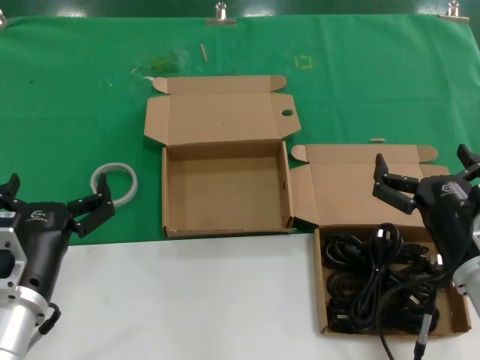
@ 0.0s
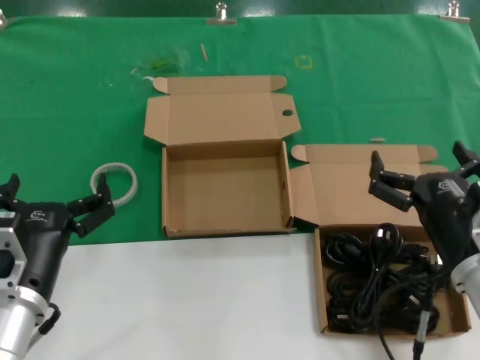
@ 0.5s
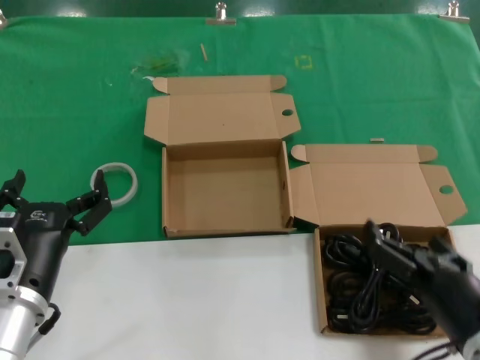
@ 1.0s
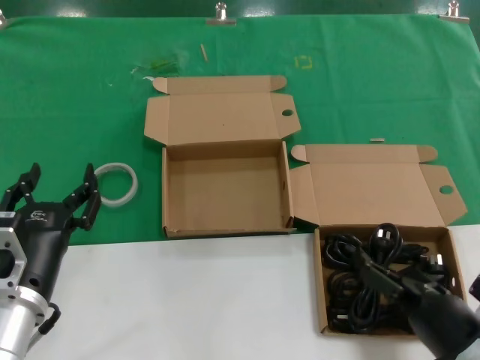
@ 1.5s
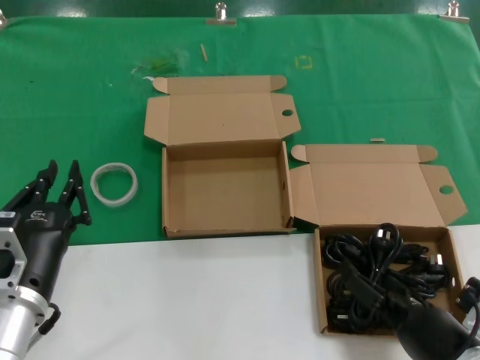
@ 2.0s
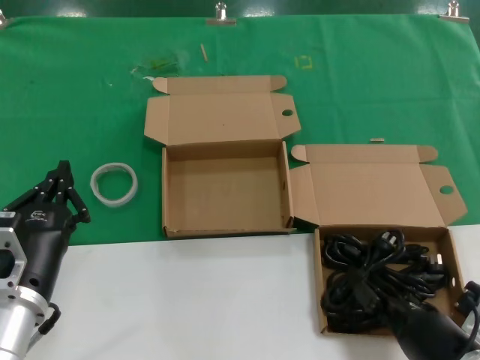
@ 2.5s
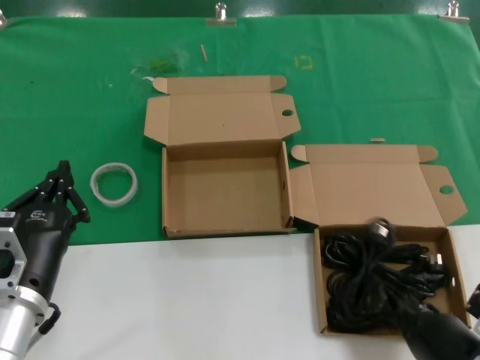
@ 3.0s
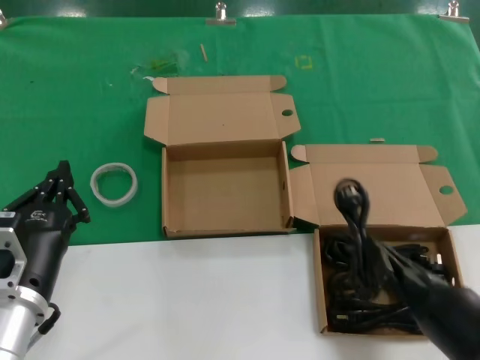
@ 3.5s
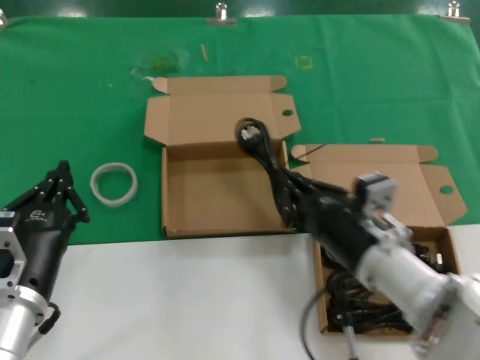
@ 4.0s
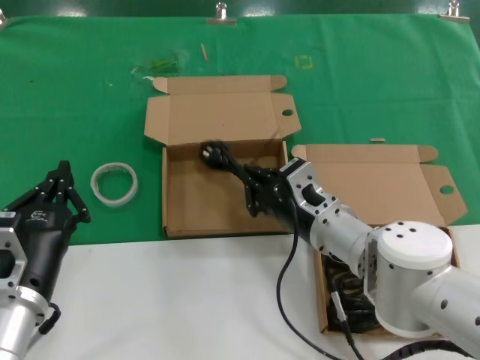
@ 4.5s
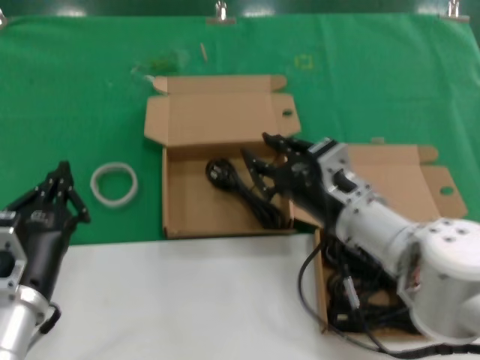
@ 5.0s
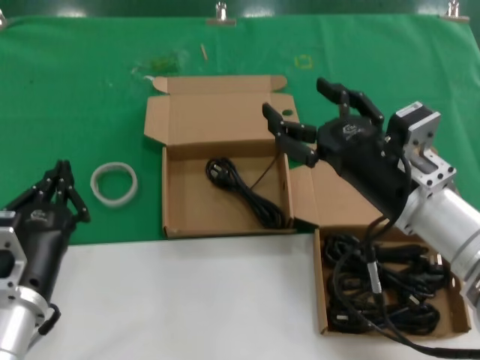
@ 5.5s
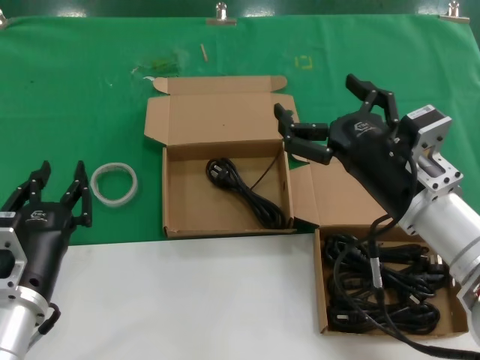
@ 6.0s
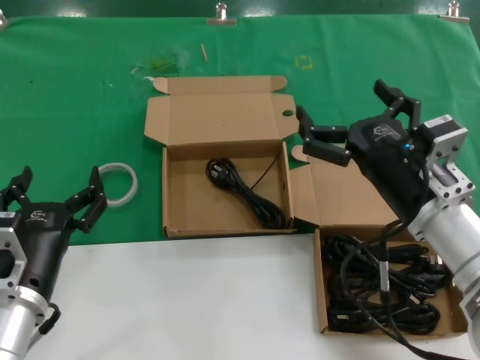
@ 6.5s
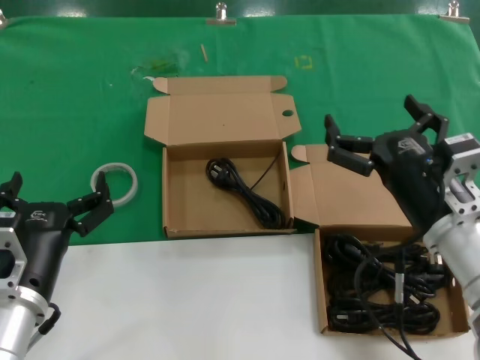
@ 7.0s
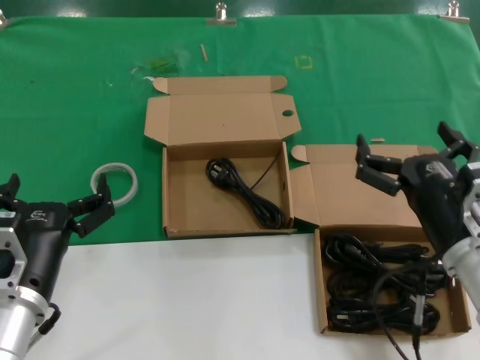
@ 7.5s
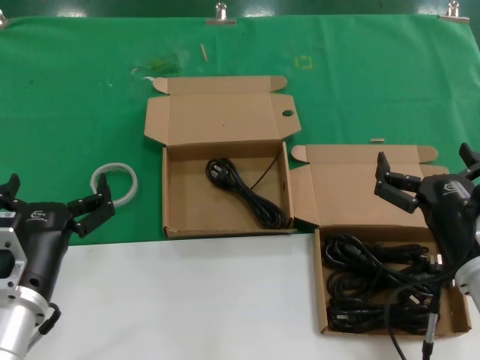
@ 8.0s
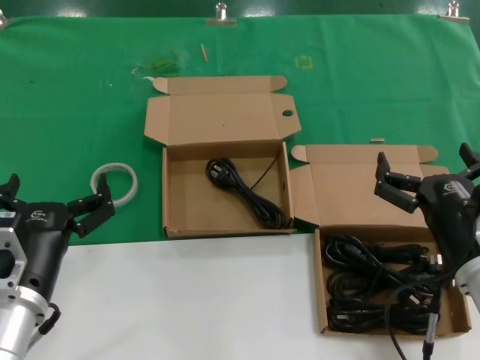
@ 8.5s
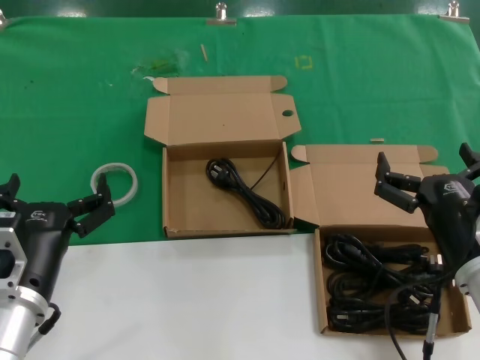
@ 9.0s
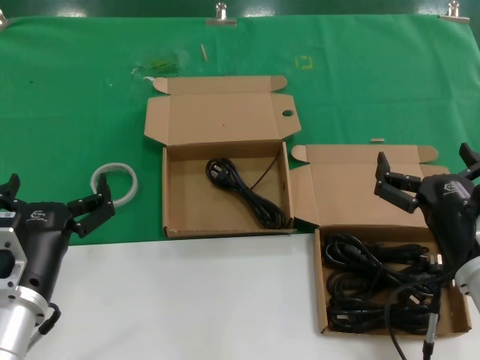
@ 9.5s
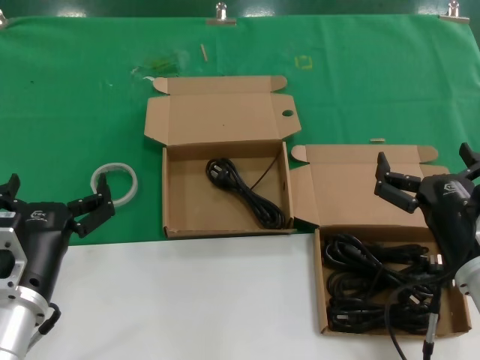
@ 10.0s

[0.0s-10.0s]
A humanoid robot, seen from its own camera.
Task of the whole recording: Pick up the power cord from the box containing it and place it in another box.
Step, 0.0s to 2.5s: Grasp the data cable.
Step, 3.0s to 4.5s: Place the data cable in the another box.
0.0s to 2.0s: The right hand travels backward by roughly 10 cm.
2.0s to 4.0s: The right hand moves forward, to the left and upward, approximately 15 cm.
4.0s to 6.0s: The right hand moves upward, roughly 5 cm.
6.0s to 8.0s: The right hand travels downward and to the right by some 10 cm.
8.0s to 10.0s: Neither hand changes place.
